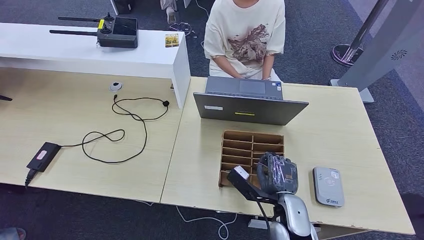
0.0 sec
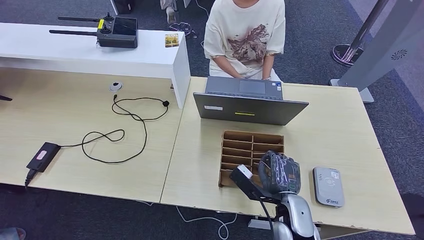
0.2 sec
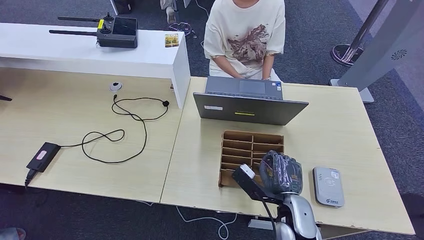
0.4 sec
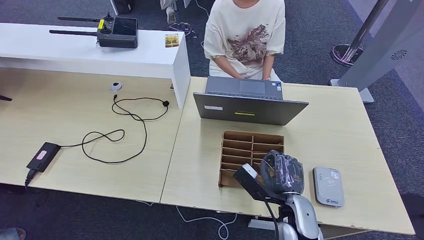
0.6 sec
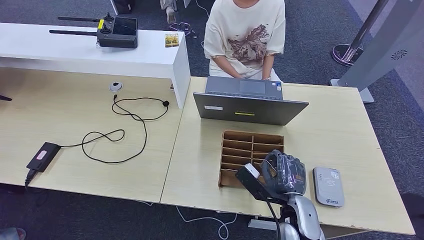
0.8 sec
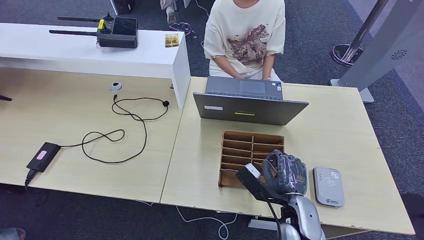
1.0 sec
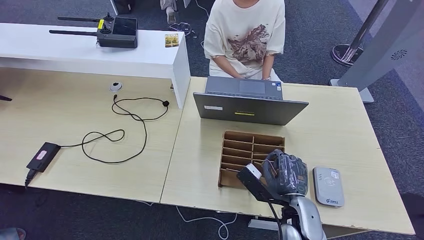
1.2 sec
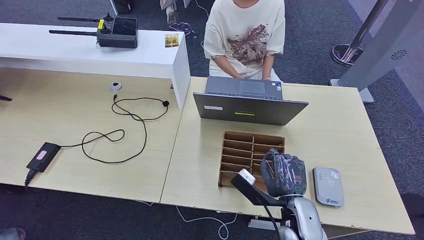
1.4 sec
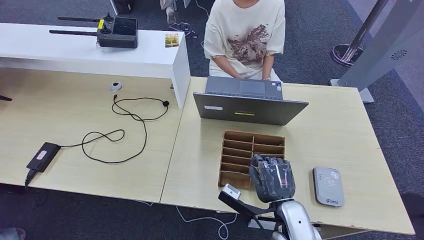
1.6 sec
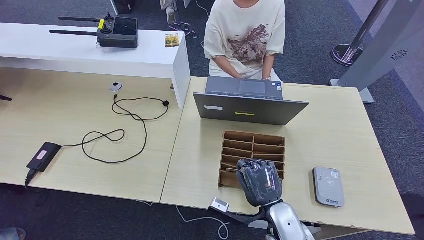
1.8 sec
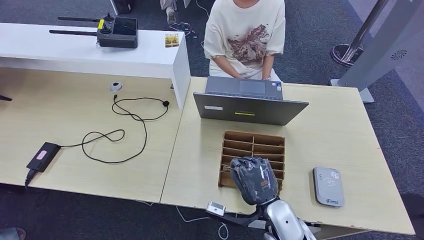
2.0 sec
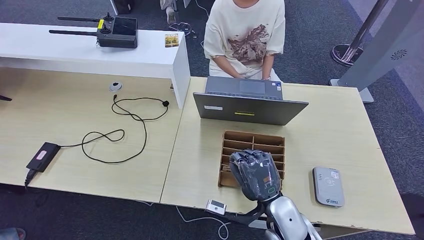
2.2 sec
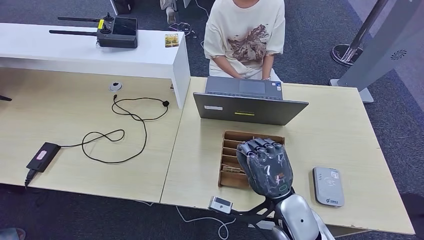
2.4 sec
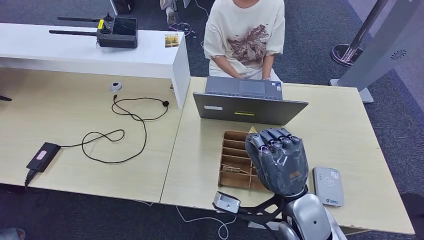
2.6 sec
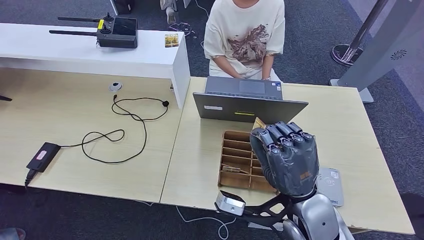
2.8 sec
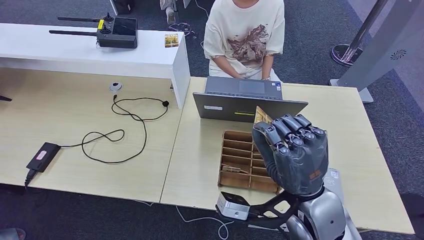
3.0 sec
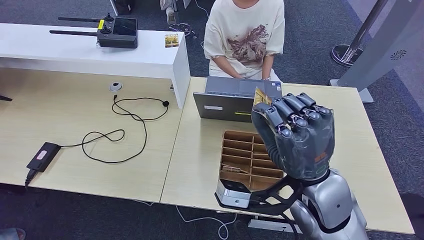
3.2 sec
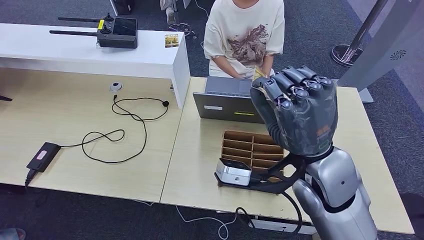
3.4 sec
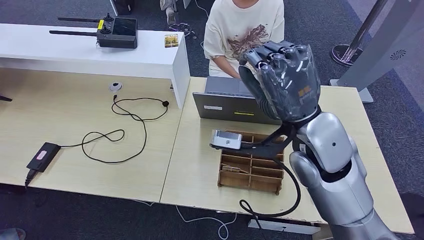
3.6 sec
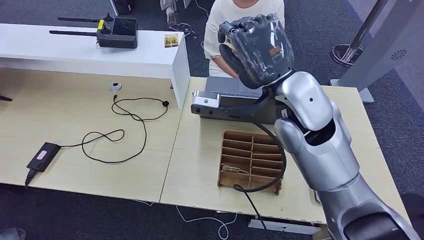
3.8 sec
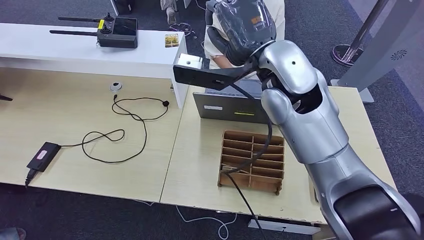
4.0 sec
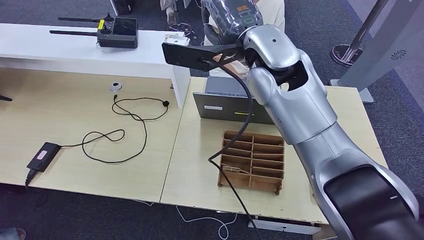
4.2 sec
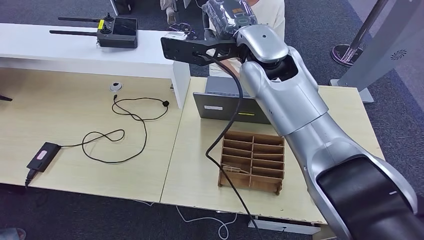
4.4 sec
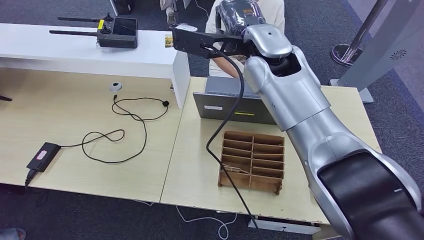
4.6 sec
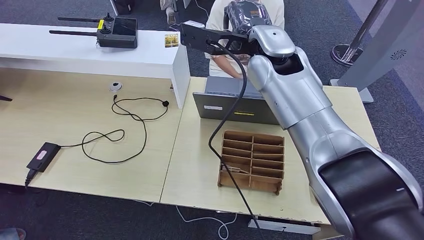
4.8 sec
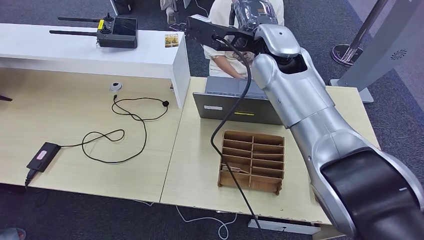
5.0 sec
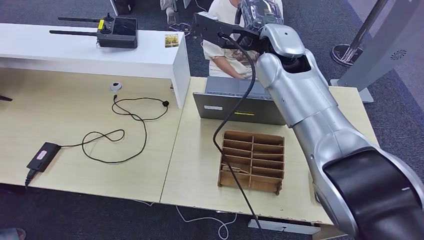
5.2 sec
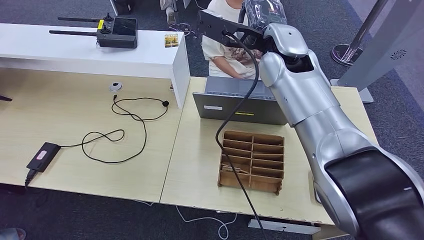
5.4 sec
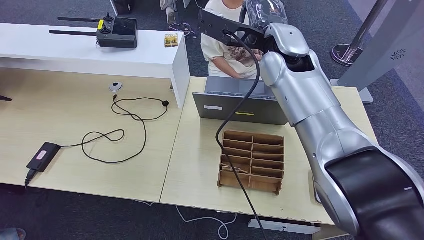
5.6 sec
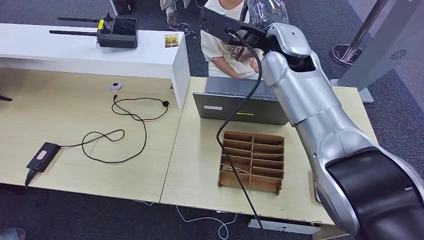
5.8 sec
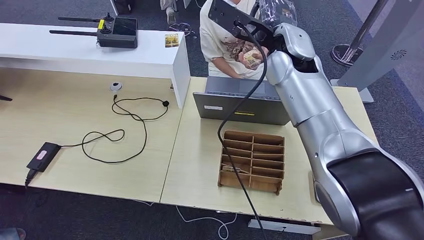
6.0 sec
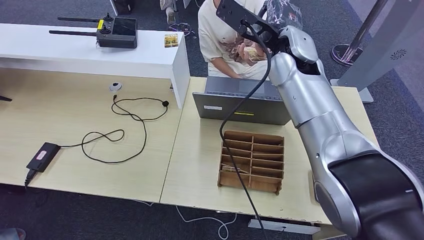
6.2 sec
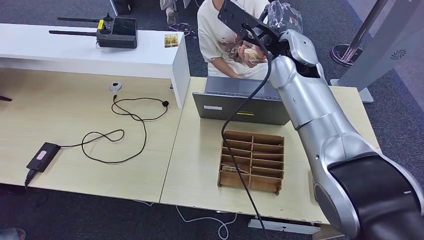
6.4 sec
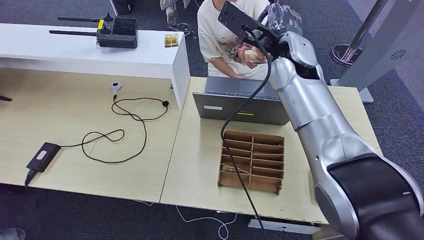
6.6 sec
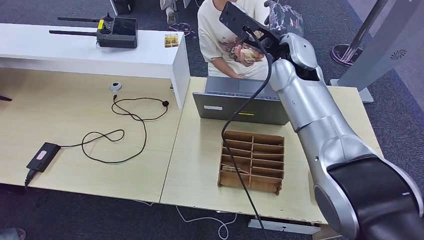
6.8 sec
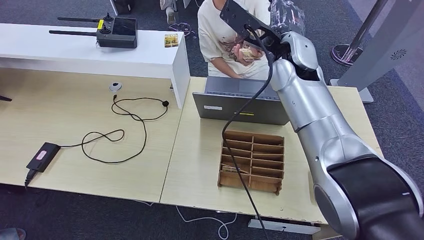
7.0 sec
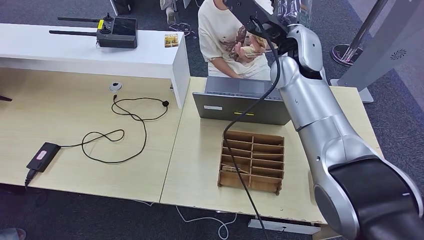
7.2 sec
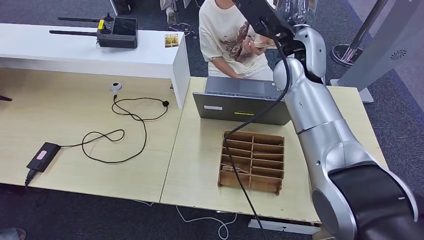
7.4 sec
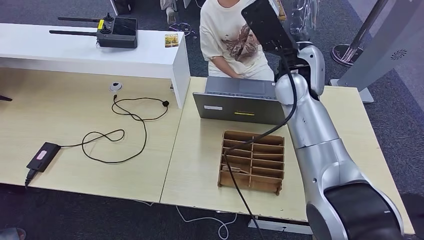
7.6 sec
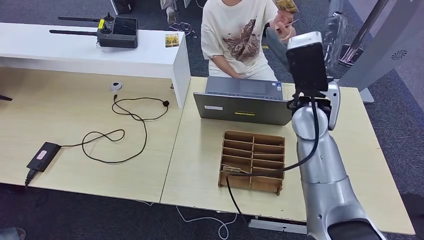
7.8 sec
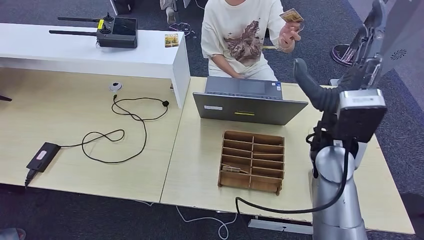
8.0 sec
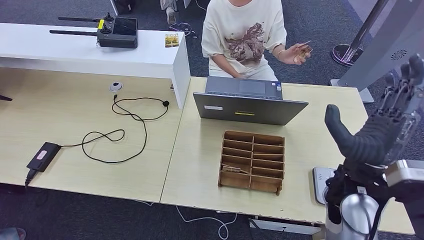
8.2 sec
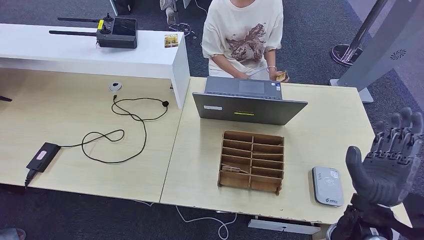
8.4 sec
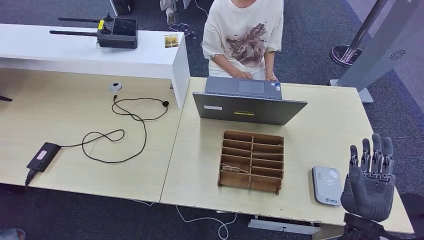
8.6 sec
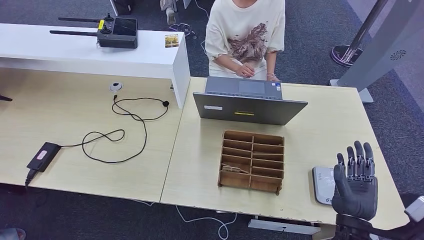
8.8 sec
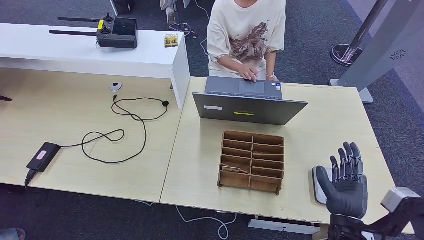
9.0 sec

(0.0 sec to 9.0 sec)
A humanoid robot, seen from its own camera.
Step, 0.0 sec - 3.8 sec: Pick up the room key from the key card box.
Step, 4.0 sec - 9.0 sec: Hand the room key to the person.
0.0 sec - 1.6 sec: The hands stay close to where they were, moving slightly.
1.6 sec - 3.0 sec: The right hand shifts roughly 15 cm upward.
4.4 sec - 6.0 sec: The right hand ends up some 5 cm from where it was.
7.6 sec - 9.0 sec: The right hand is displaced backward and downward by approximately 35 cm.
